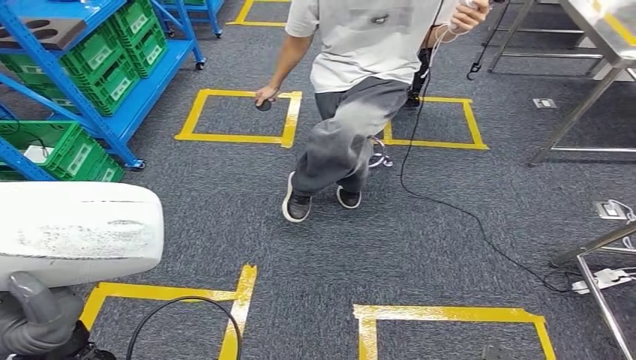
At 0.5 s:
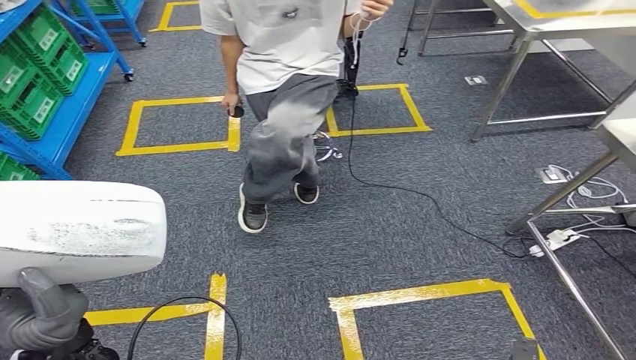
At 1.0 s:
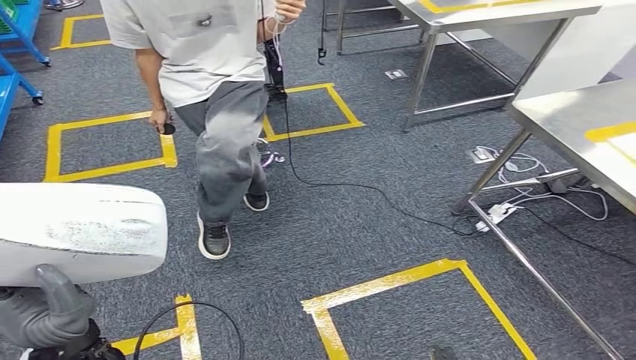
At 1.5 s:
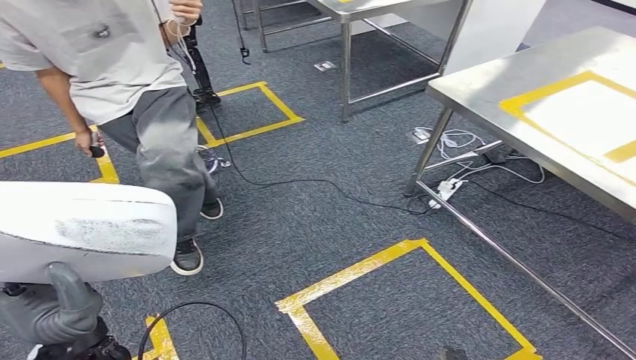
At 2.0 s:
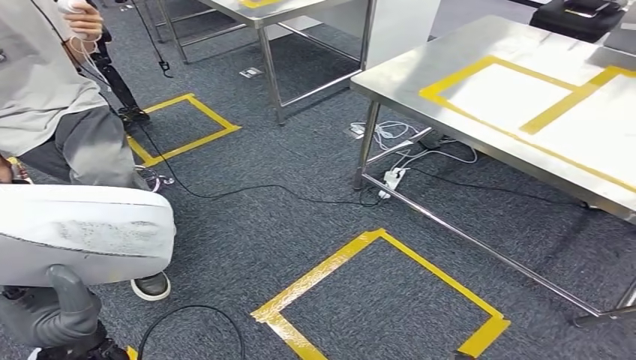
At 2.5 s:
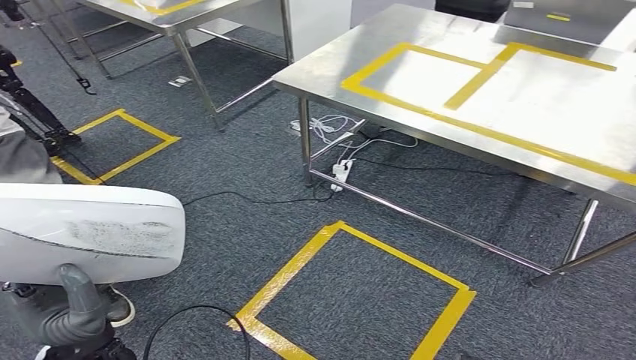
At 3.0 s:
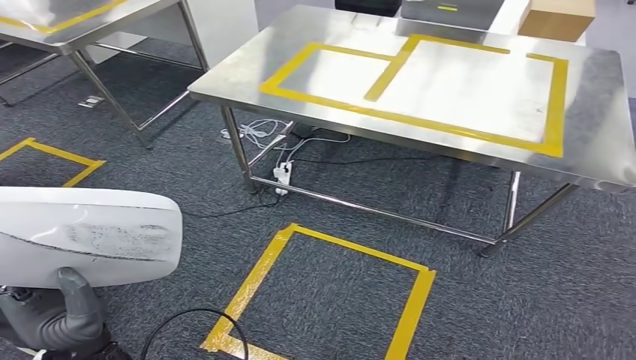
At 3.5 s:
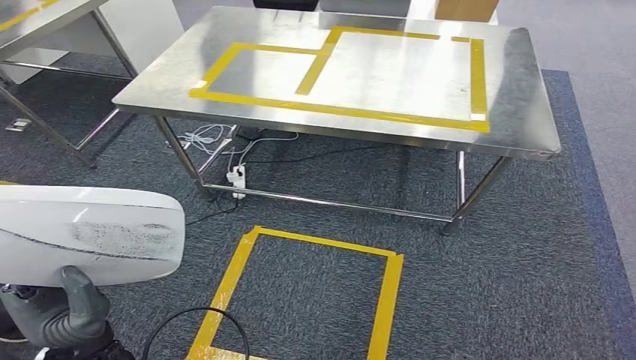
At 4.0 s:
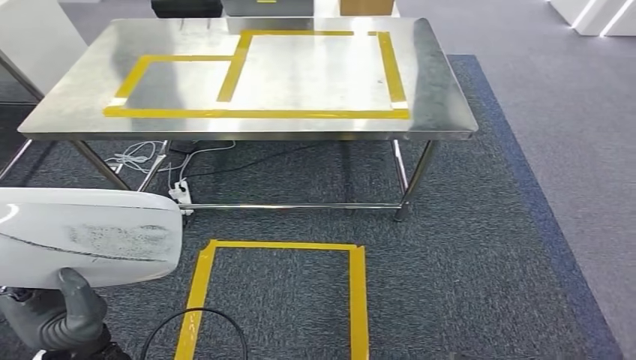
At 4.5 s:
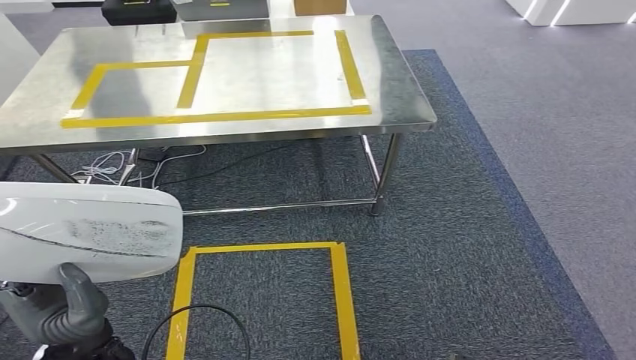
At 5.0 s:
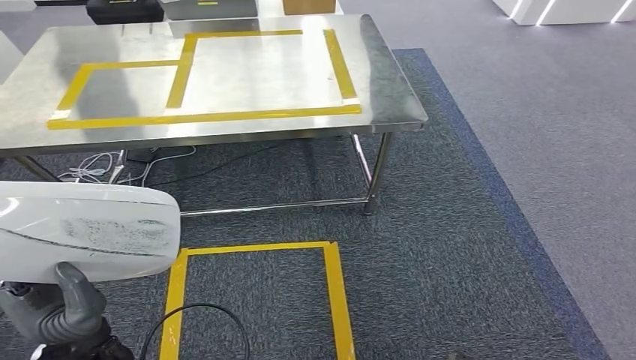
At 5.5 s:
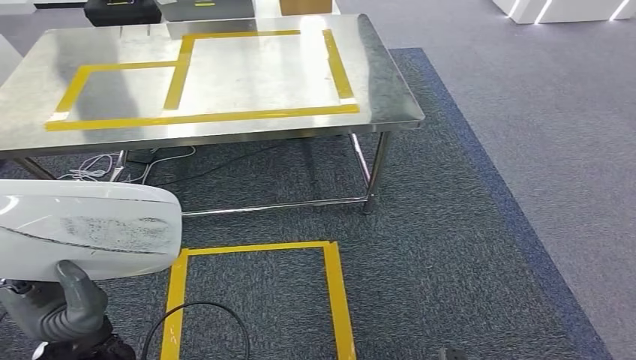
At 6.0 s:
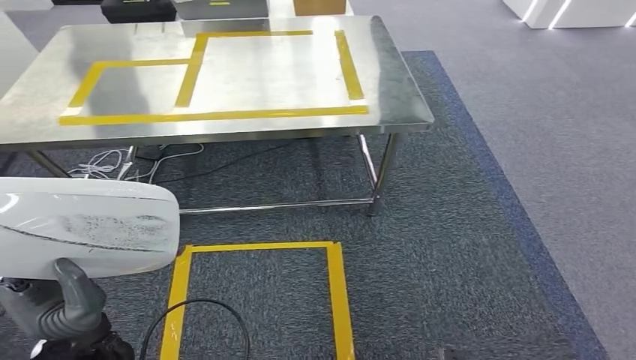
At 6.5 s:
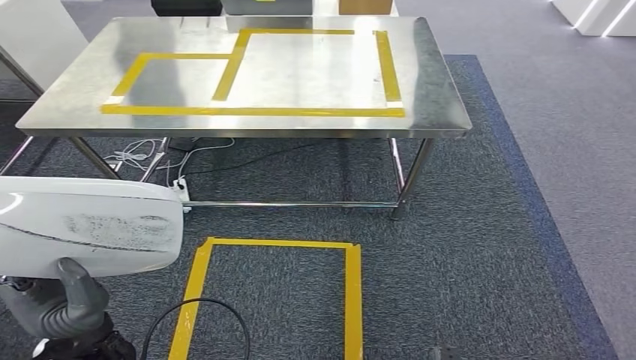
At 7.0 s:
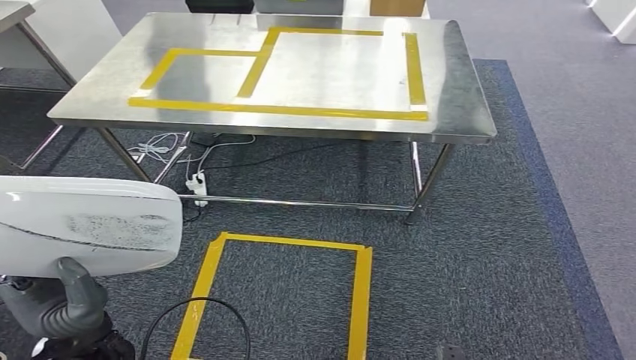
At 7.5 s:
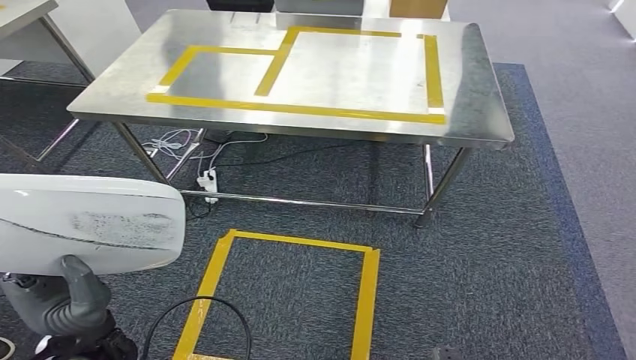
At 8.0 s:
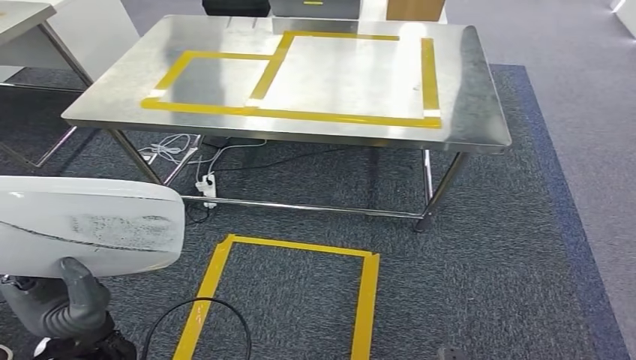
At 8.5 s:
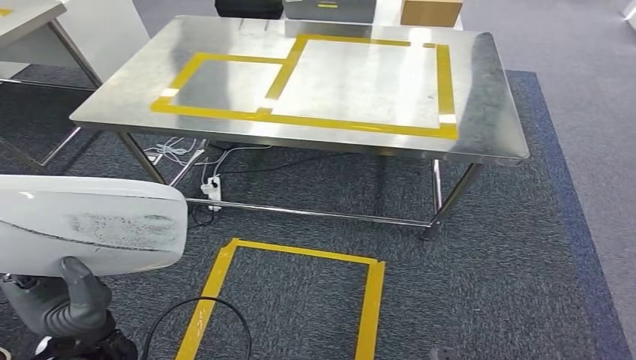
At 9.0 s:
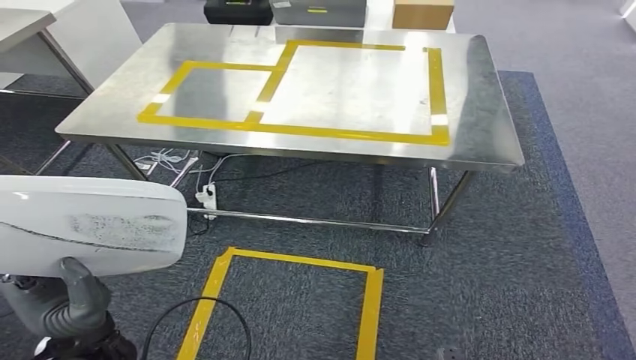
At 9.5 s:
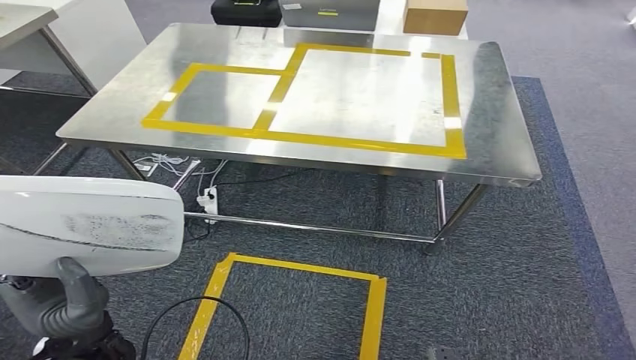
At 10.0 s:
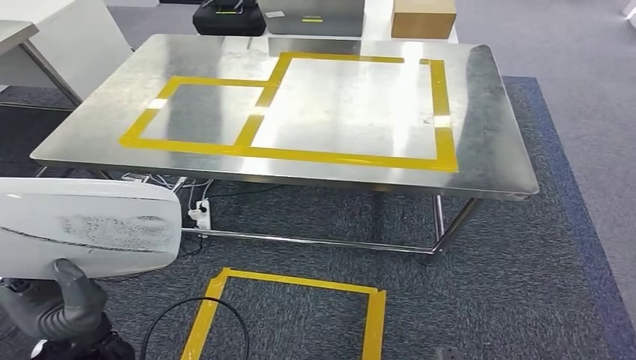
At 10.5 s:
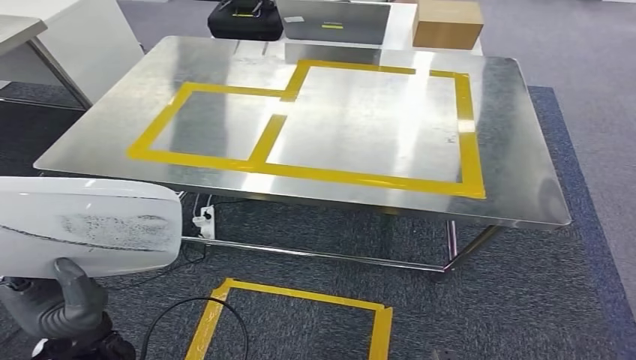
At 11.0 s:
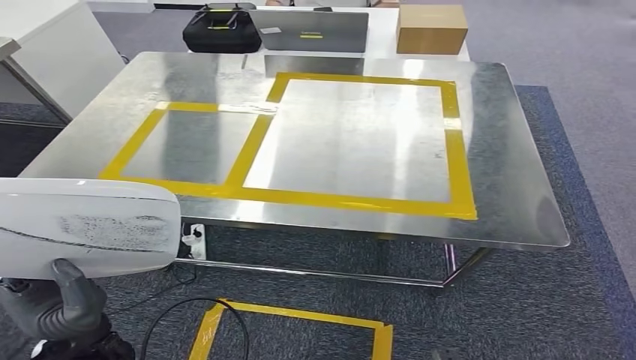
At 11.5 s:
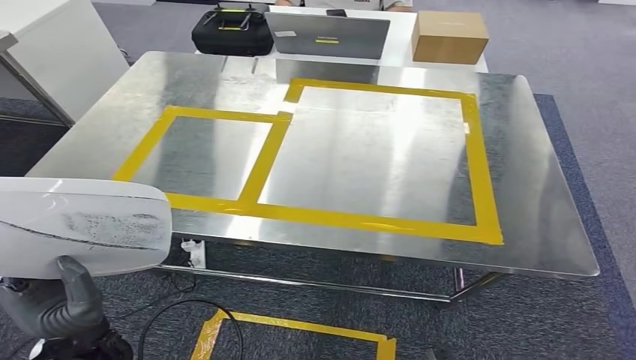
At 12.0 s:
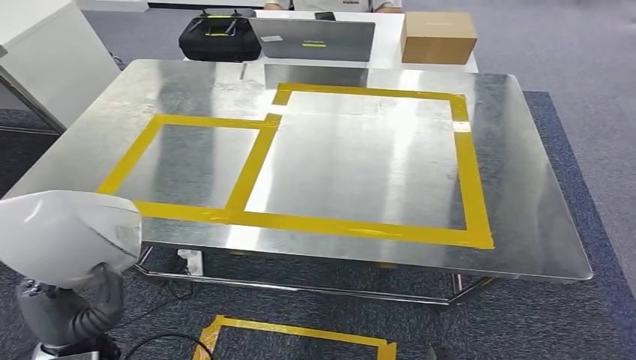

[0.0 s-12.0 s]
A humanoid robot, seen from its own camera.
Step, 0.0 to 11.0 s: Move the small parts to the workbench.

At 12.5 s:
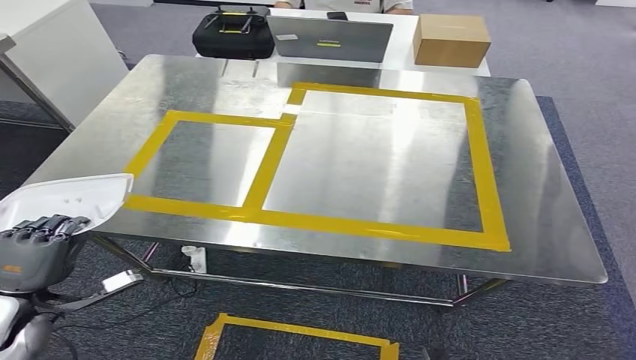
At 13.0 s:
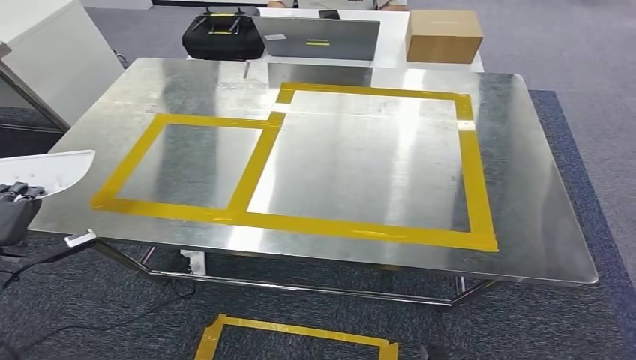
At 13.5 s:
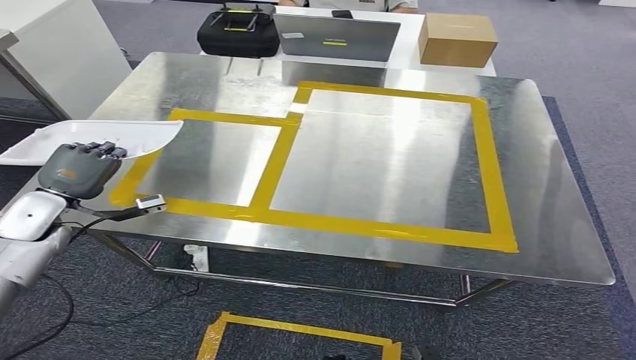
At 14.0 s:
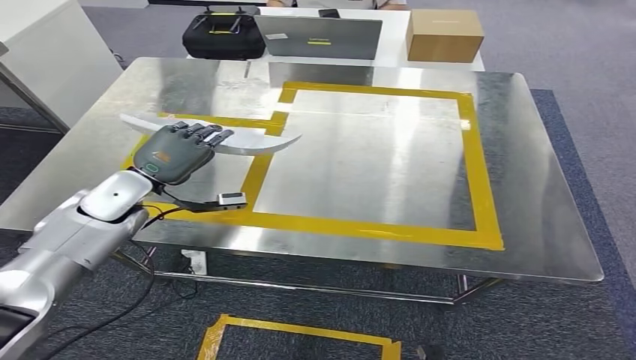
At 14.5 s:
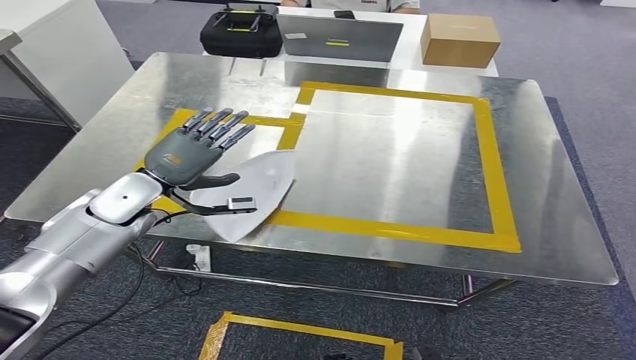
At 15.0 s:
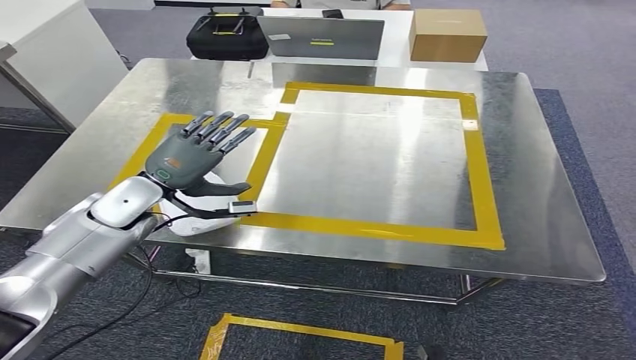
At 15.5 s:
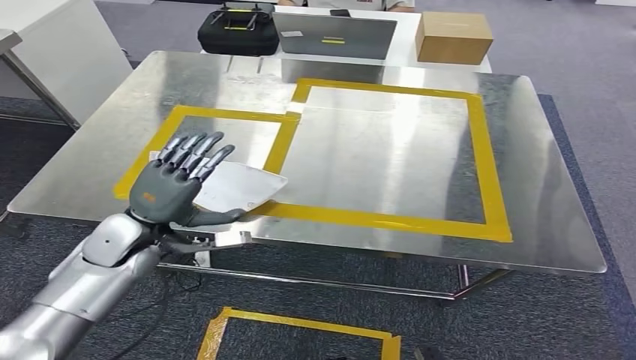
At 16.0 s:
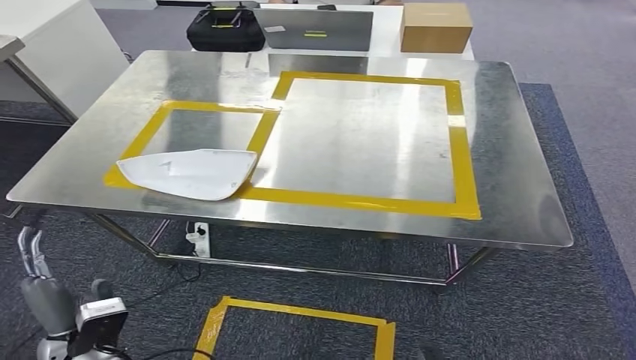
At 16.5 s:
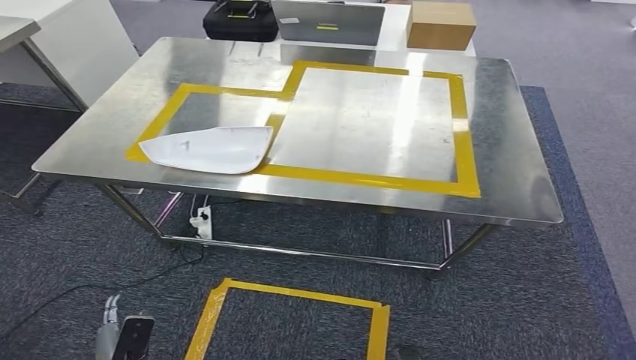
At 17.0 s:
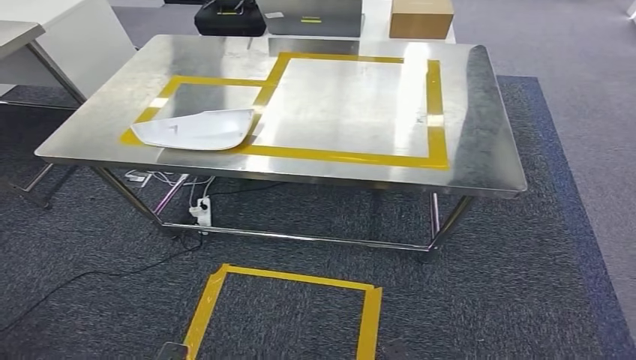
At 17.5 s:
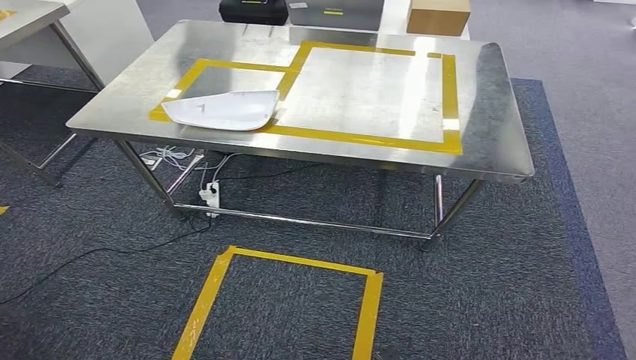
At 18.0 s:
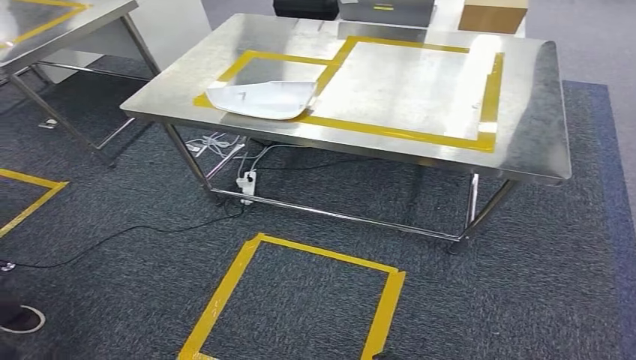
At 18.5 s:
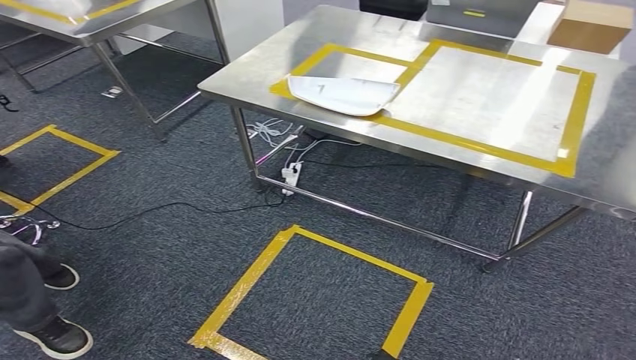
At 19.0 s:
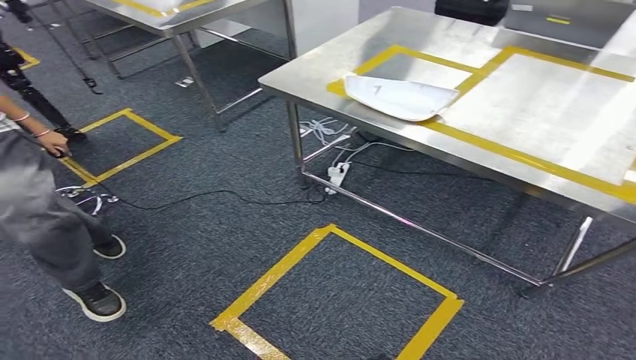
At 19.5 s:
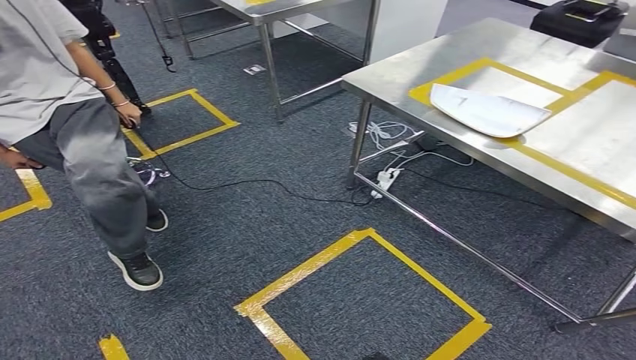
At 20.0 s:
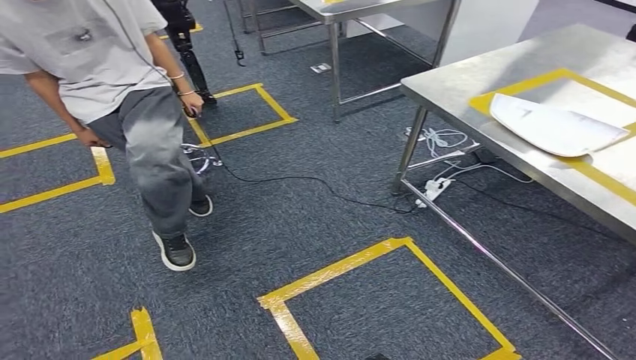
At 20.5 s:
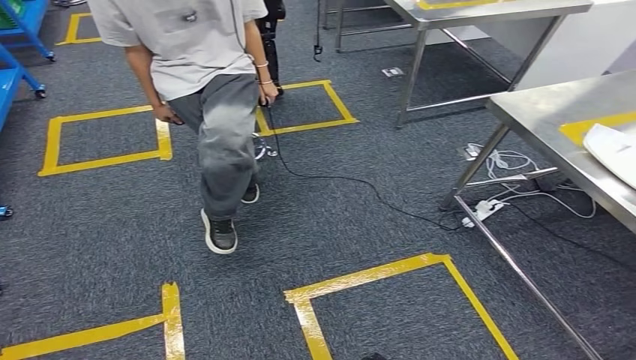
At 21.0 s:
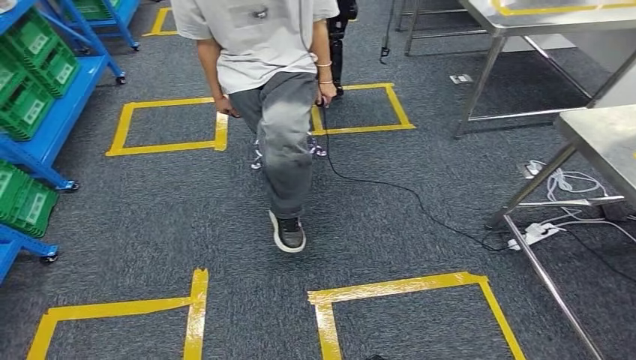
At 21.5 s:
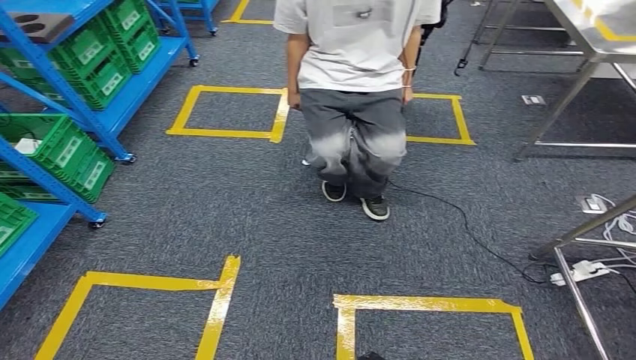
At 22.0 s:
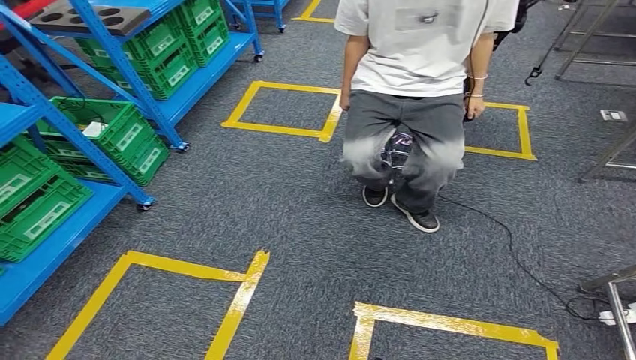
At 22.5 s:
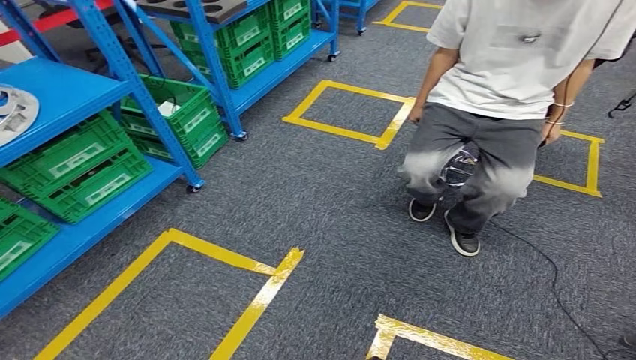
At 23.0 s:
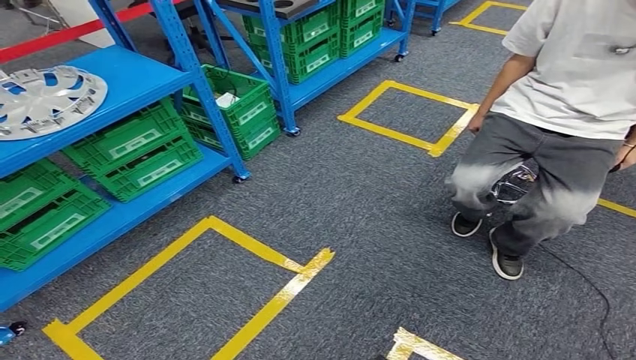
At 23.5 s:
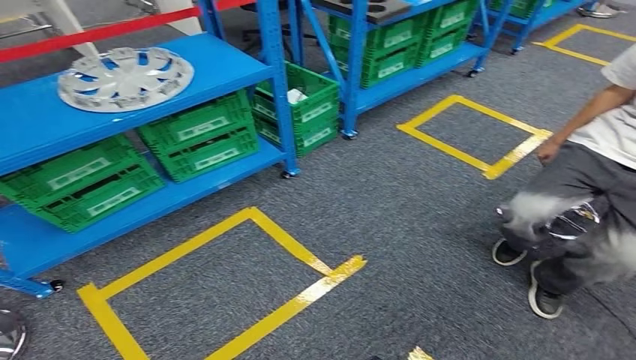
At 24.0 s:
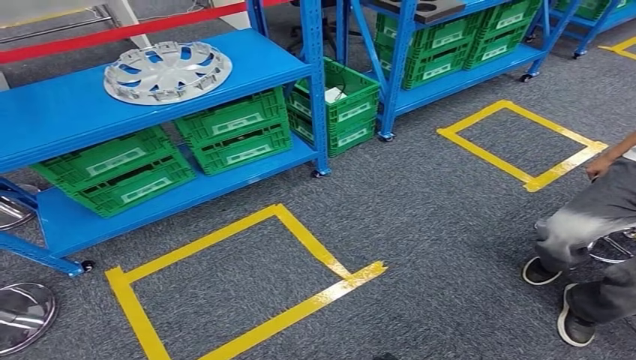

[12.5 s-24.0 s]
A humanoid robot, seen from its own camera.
Step, 12.5 to 20.0 s: Insert the small parts into the corresponding holes on the workbench.